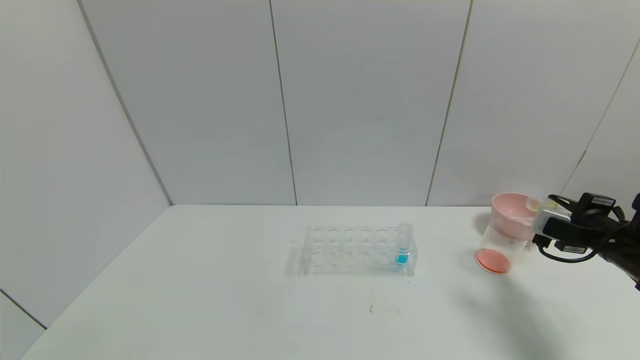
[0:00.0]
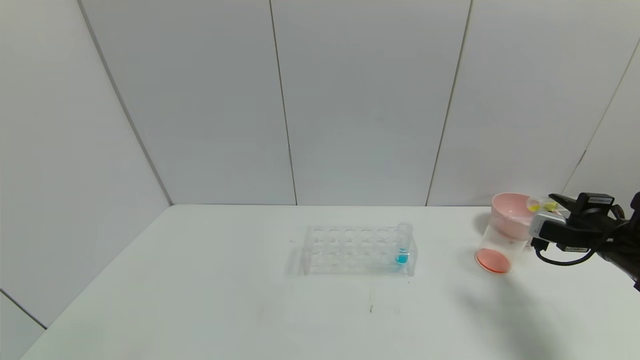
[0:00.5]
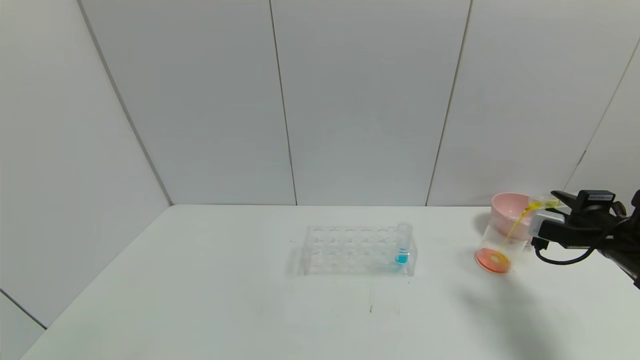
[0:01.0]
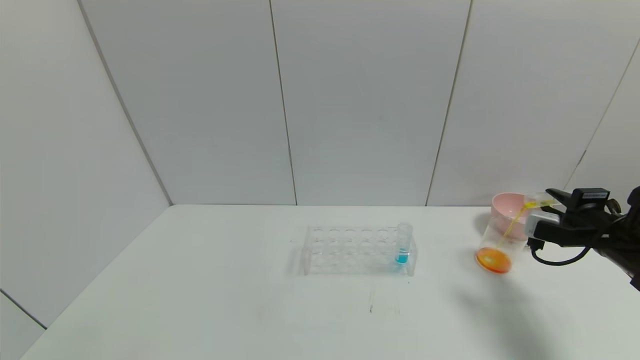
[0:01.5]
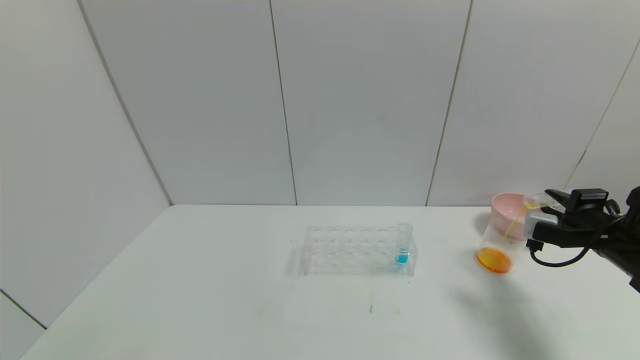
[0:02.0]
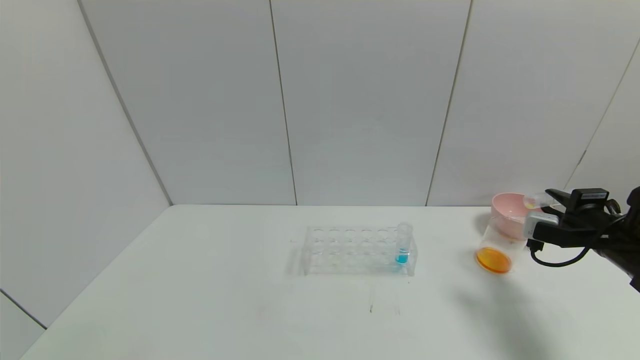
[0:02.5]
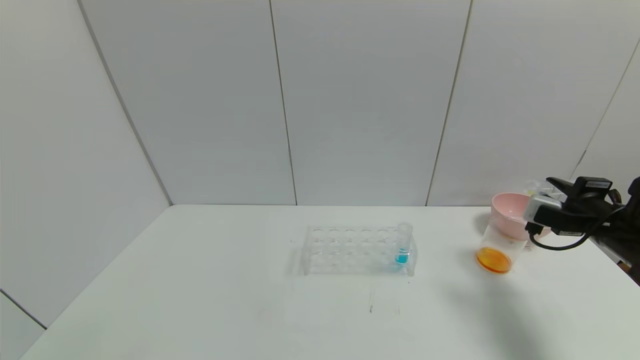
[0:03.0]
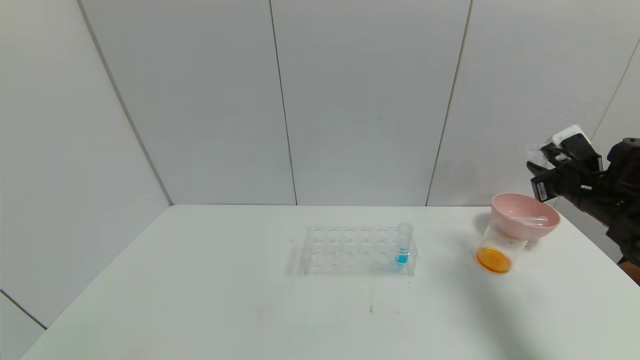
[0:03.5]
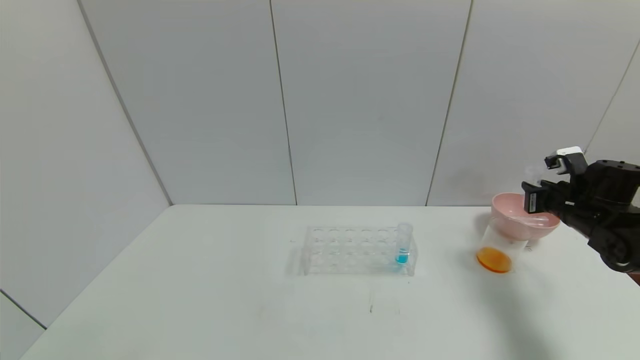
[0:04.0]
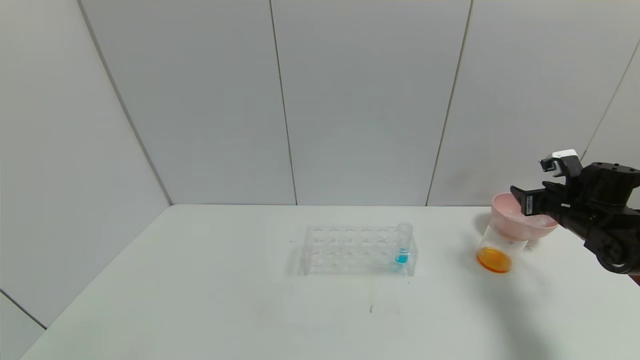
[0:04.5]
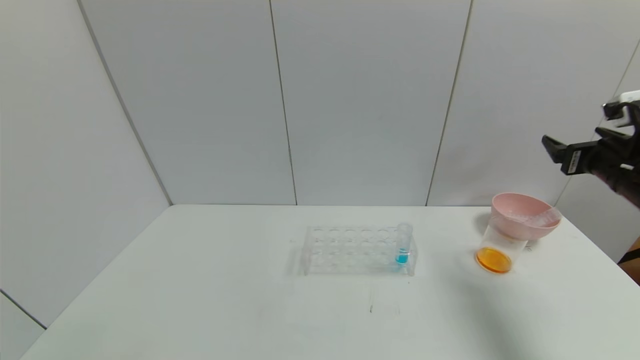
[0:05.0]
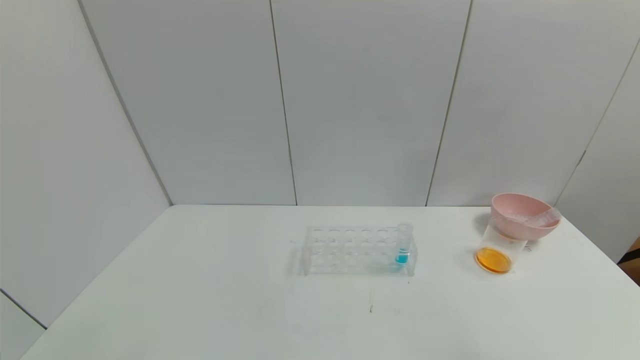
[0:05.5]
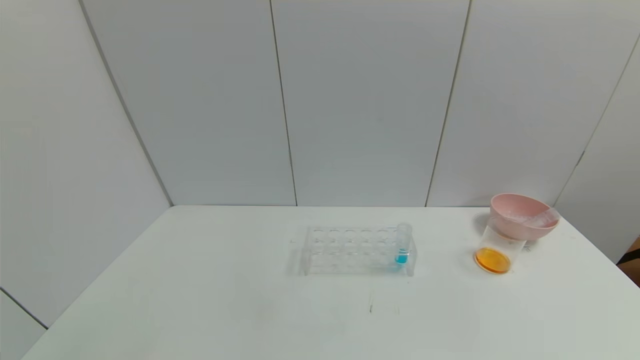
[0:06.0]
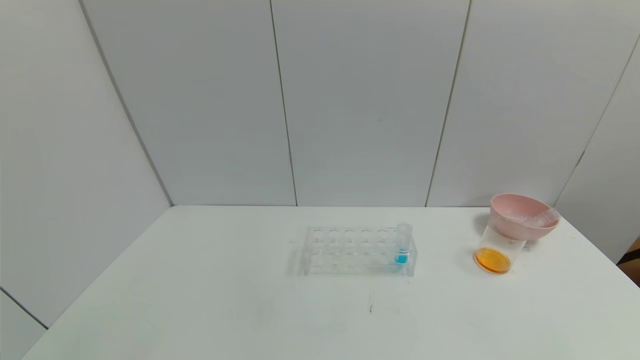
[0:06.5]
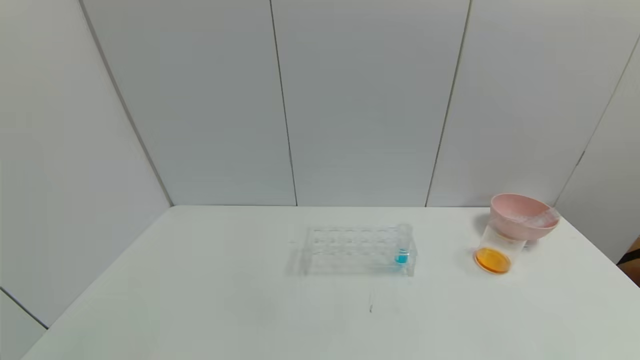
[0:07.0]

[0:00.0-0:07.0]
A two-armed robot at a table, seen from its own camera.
Task of the whole recording: pick up the test tube with yellow pigment and the test tube with red pigment by grippers and pour them into the beaker.
Step, 0:00.0 to 0:03.5: Pour the yellow reagent into the graduated cylinder with right gripper.
Step, 0:04.0 to 0:05.0: Place the test tube into the bowl with right gripper.
0:00.0 to 0:02.0: The grippers move only a little.
0:02.0 to 0:03.5: The right gripper goes approximately 5 cm forward.
0:03.5 to 0:05.0: The right gripper changes place by some 5 cm, and opens up.
0:05.0 to 0:07.0: The right gripper moves backward, some 35 cm.
